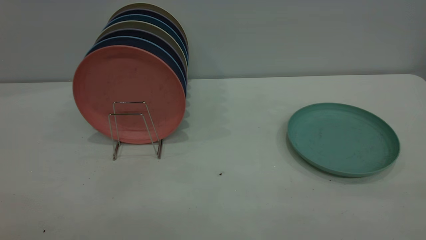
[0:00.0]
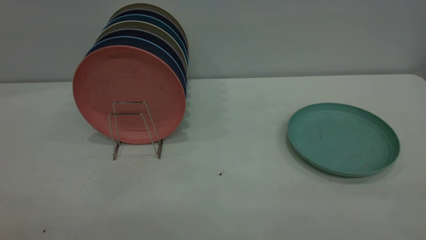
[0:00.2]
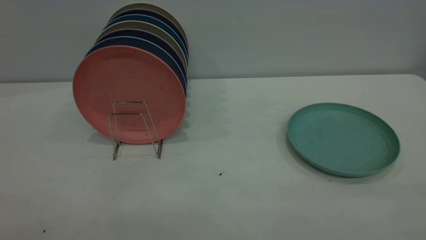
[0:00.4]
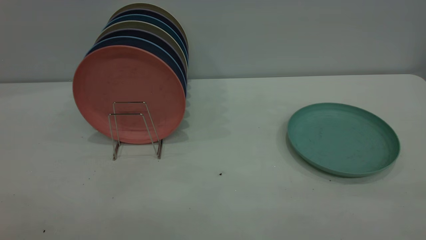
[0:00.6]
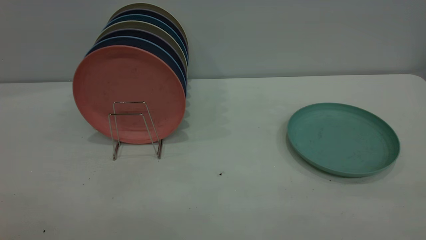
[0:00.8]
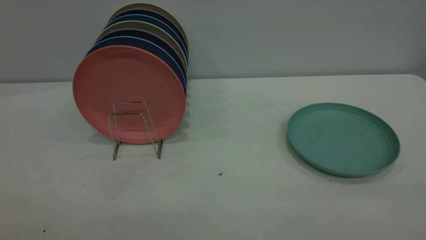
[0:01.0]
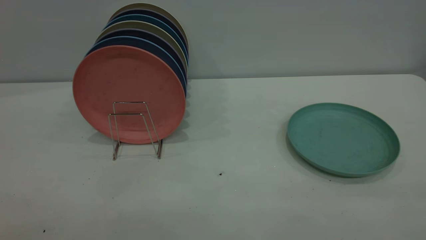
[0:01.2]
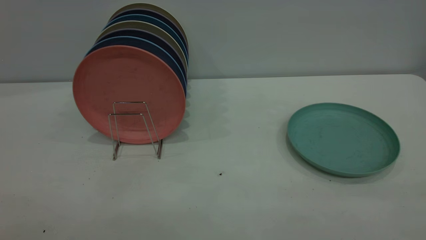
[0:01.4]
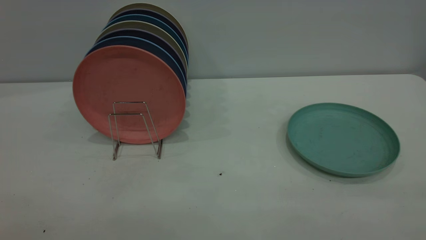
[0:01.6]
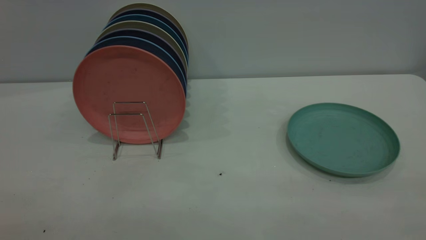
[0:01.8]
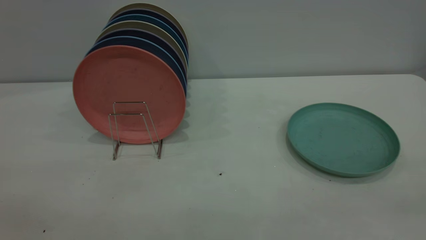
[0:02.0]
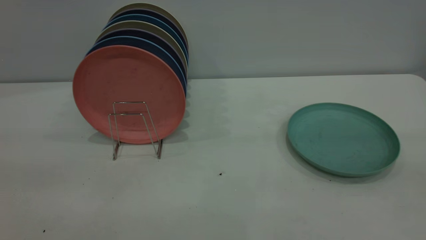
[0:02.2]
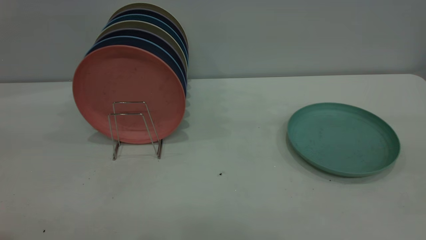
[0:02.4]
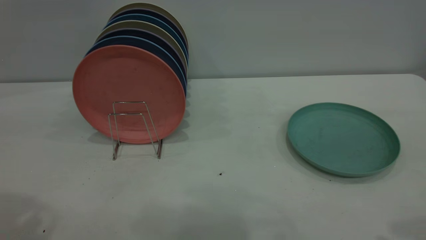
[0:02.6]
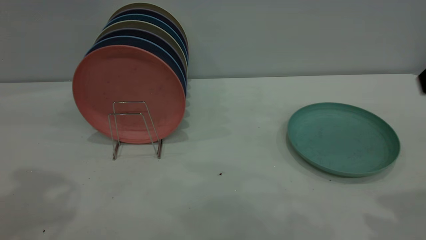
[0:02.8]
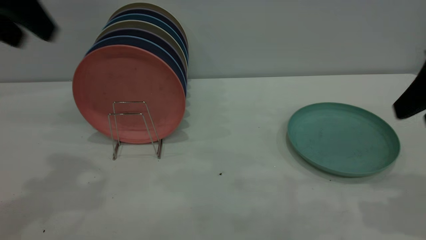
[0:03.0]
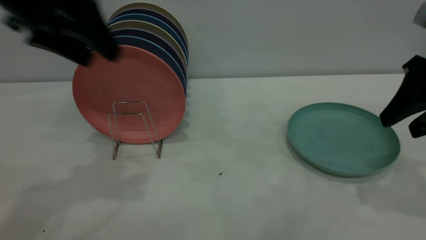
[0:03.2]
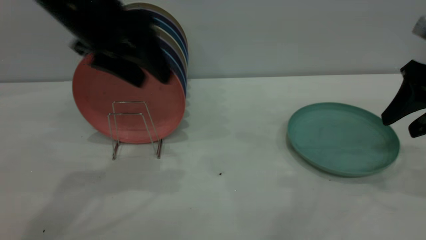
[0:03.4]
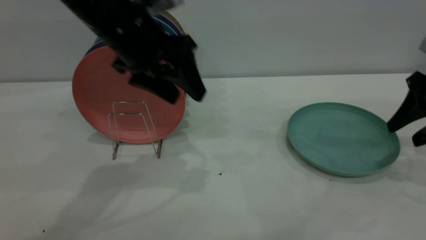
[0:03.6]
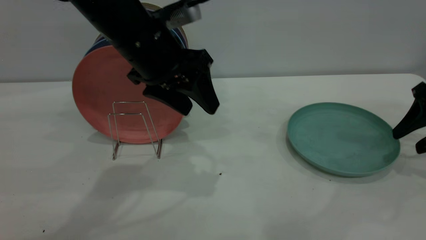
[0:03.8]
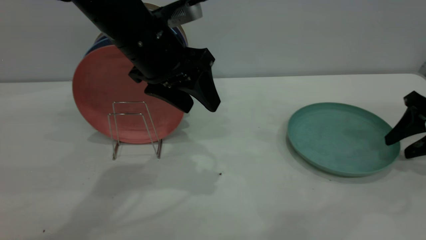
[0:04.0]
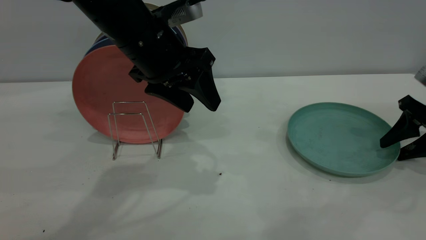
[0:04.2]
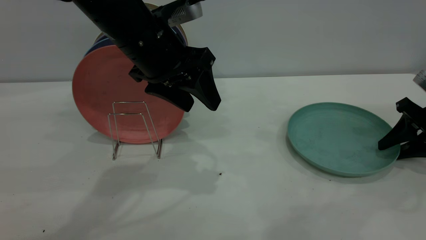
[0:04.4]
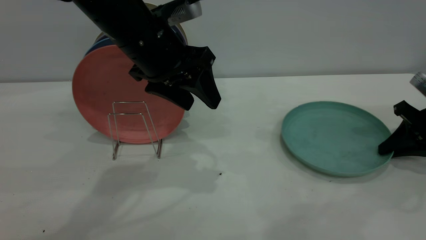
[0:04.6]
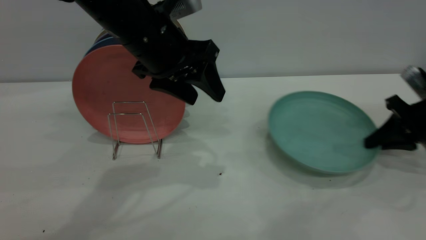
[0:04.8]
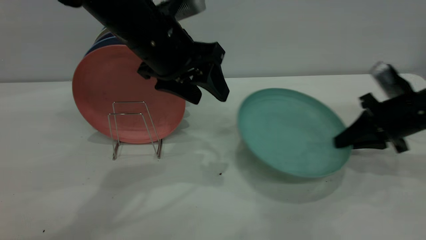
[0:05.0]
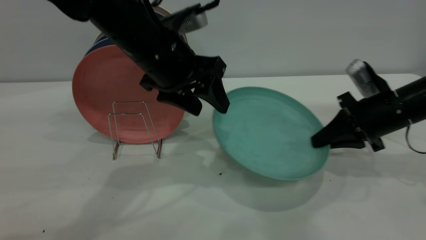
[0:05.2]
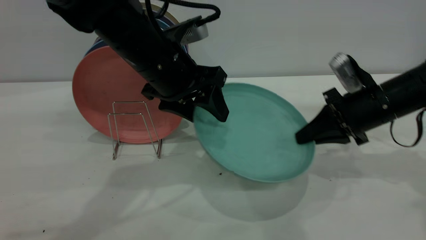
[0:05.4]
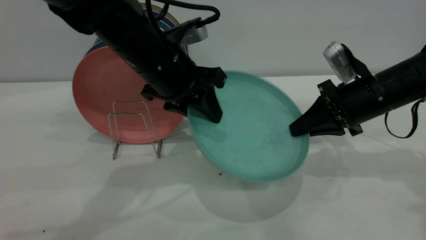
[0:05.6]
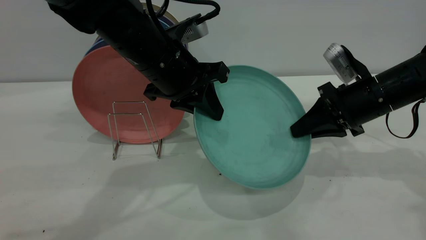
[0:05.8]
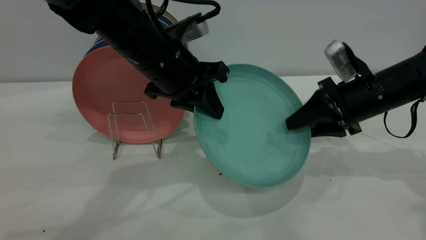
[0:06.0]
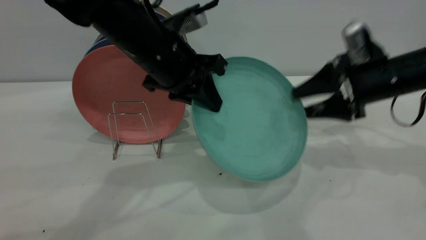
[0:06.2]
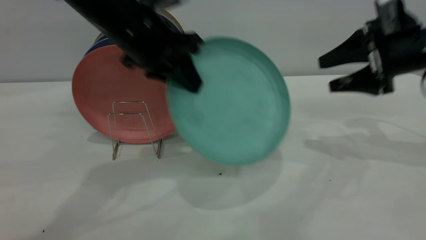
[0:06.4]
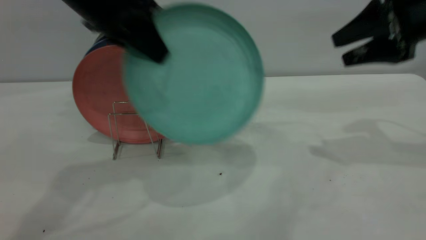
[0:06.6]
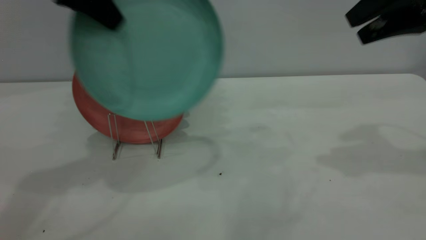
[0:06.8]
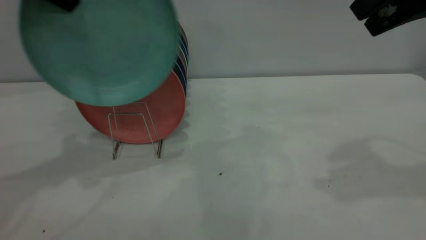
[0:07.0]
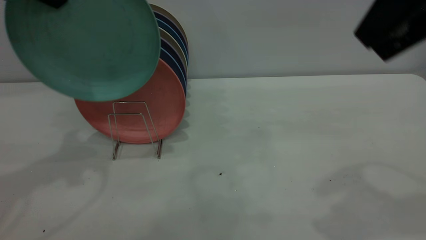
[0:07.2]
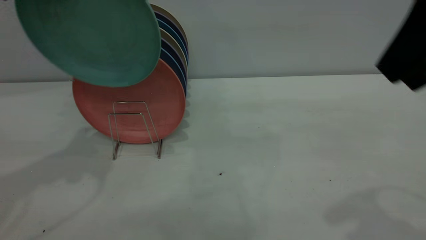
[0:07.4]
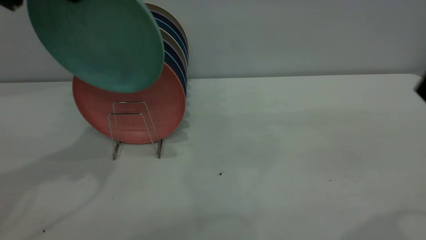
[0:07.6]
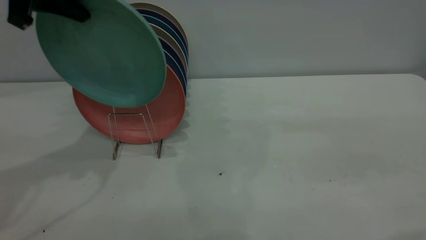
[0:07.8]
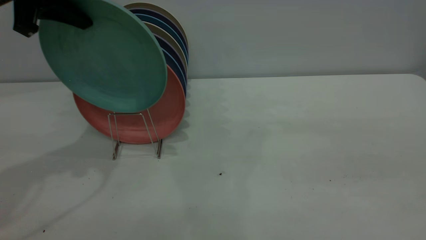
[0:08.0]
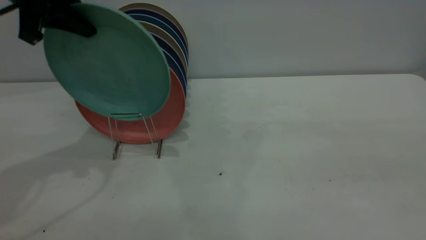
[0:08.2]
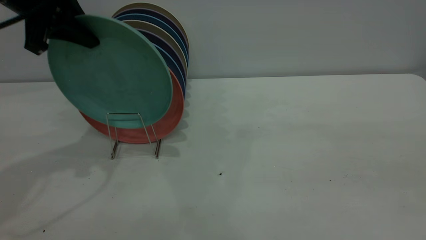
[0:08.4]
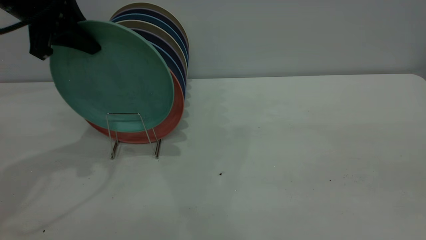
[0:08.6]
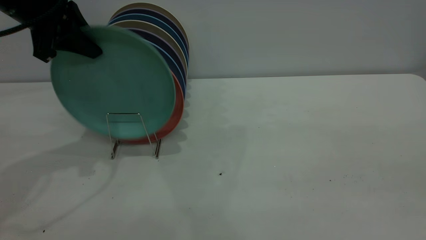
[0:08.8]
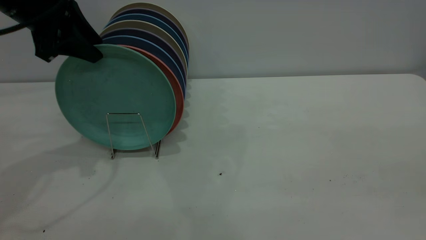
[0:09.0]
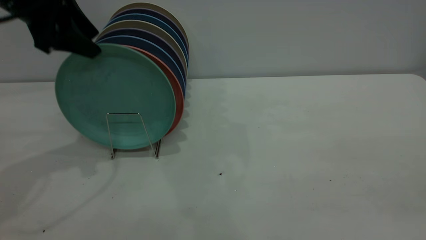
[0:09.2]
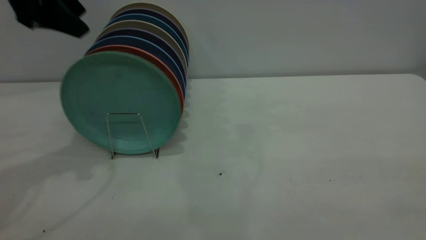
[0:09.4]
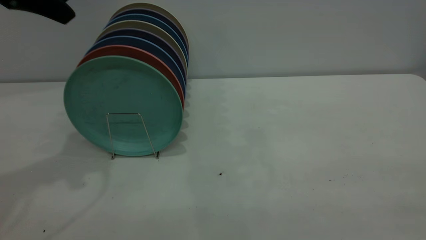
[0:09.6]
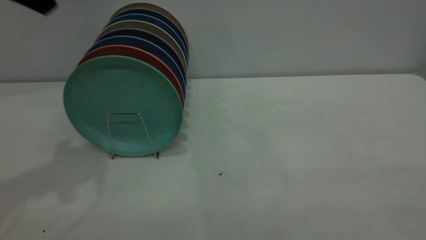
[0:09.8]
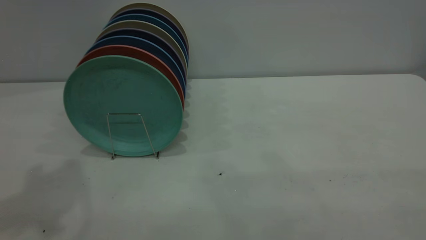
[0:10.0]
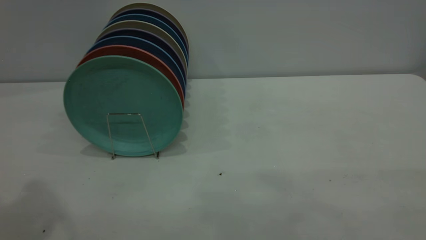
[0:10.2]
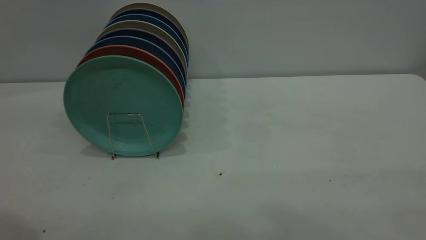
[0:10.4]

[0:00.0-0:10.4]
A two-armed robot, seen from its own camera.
Task of the whole recording: the right gripper grasp the green plate, the right gripper pass the green plate to the left gripper, and the left gripper place the green plate on the plate rack.
Step, 0:00.0 to 0:04.8: Pick up the plate with the right gripper.
Step, 0:05.0 to 0:06.2: Pass the plate from the right gripper to the left gripper.
Step, 0:06.4 to 0:09.4: Place the plate on the shelf.
0:00.0 to 0:01.4: Neither gripper changes place.
0:01.4 to 0:03.0: The two grippers go approximately 30 cm forward.
0:03.0 to 0:04.4: The right gripper goes roughly 20 cm downward, forward and to the right, and closes, while the left gripper goes some 20 cm to the right and downward.
0:04.4 to 0:06.0: The left gripper closes up. Meanwhile the right gripper is displaced to the left by some 15 cm, and closes and opens again.
0:06.0 to 0:07.4: The left gripper heads to the left and upward, covering approximately 25 cm. Meanwhile the right gripper goes approximately 30 cm upward and backward.
0:07.4 to 0:09.0: The left gripper shifts about 10 cm downward, and opens, while the right gripper is displaced backward by roughly 15 cm.
0:09.0 to 0:10.4: The left gripper shifts roughly 30 cm backward and upward.

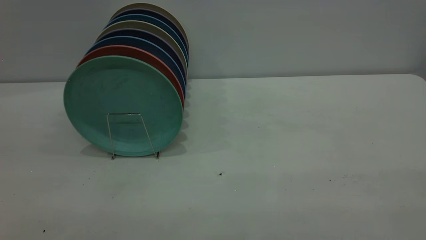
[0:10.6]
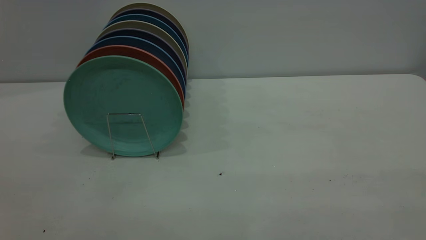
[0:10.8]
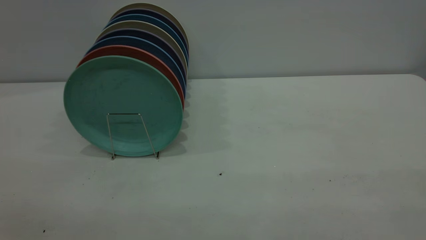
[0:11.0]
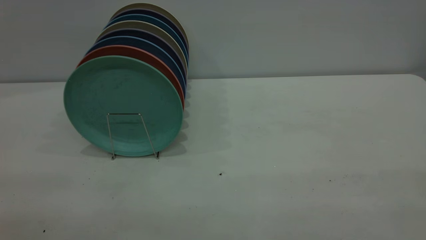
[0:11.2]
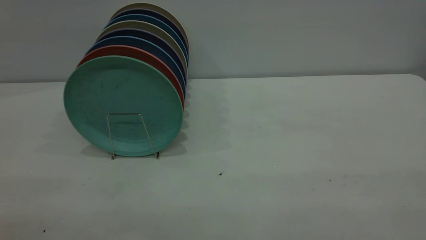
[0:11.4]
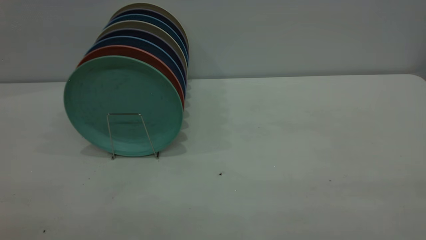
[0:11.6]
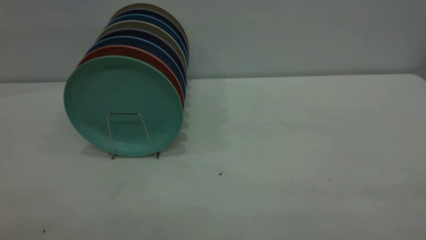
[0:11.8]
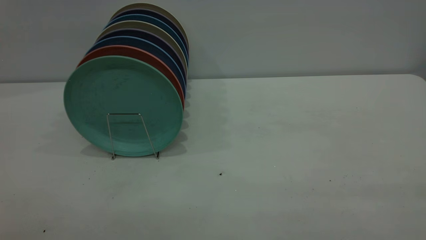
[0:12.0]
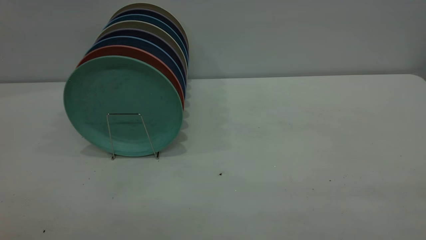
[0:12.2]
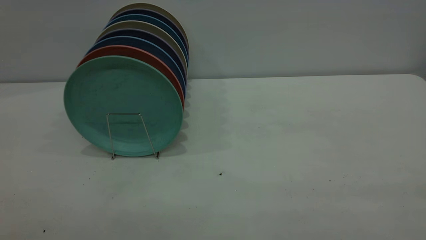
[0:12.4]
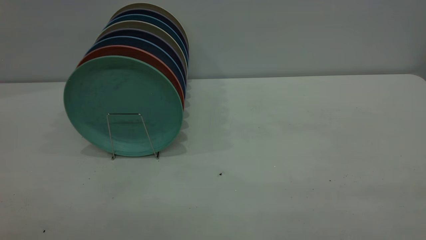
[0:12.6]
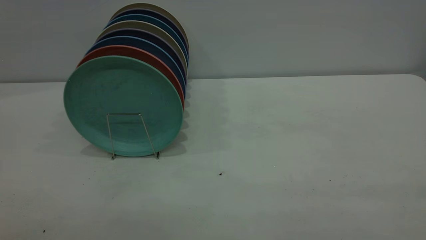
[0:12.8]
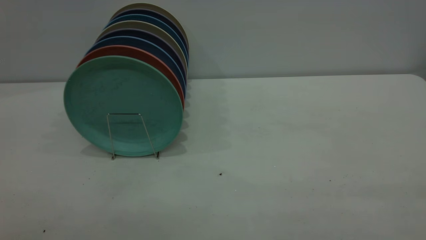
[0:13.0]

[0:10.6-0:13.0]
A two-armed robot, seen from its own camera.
Task of the whole recording: the right gripper grasp the green plate, the right gripper pass the green plate to the left gripper, and the left gripper place the green plate on the plate rack.
0:11.8 to 0:13.0: The two grippers keep their place.

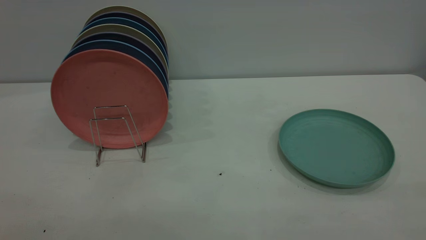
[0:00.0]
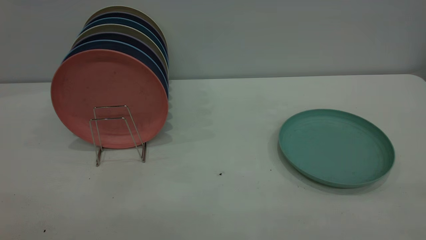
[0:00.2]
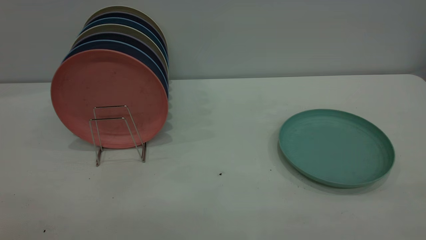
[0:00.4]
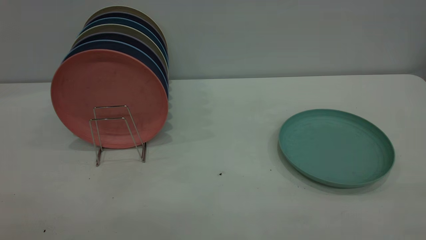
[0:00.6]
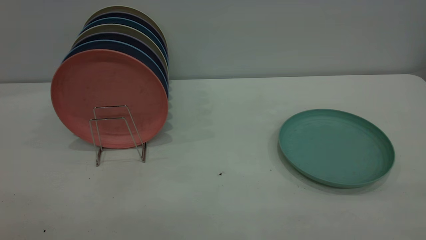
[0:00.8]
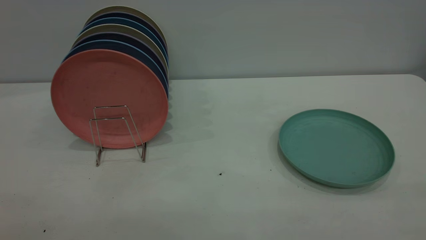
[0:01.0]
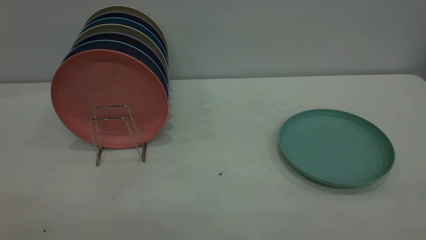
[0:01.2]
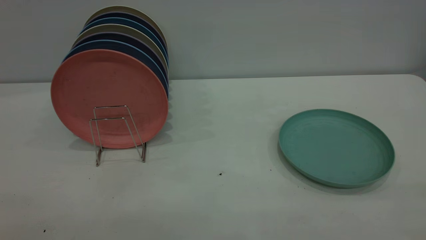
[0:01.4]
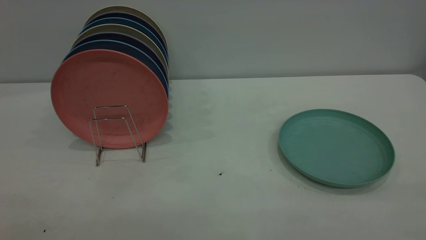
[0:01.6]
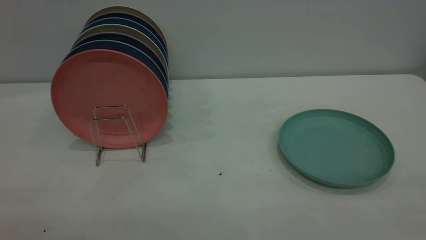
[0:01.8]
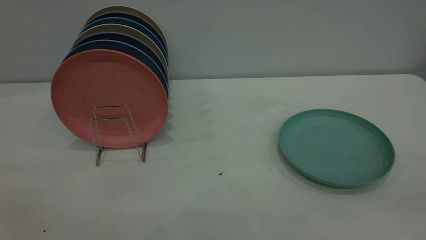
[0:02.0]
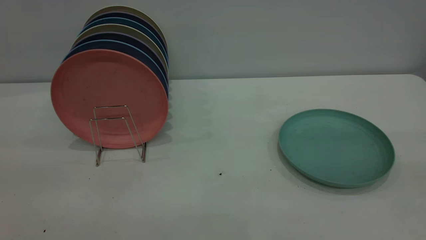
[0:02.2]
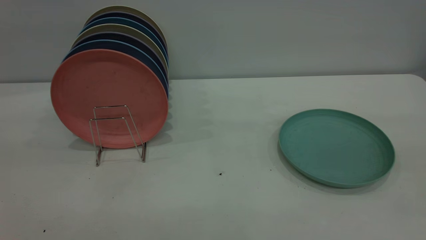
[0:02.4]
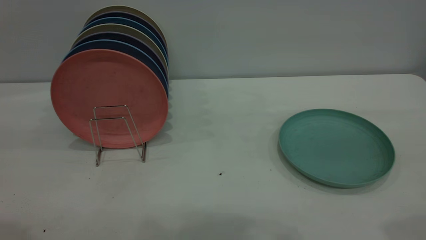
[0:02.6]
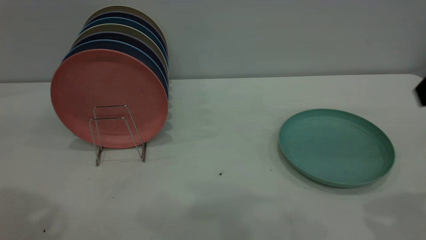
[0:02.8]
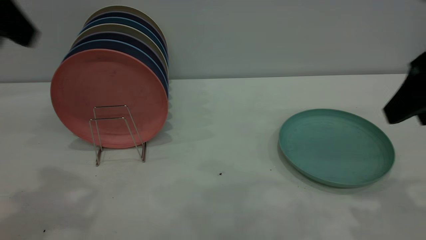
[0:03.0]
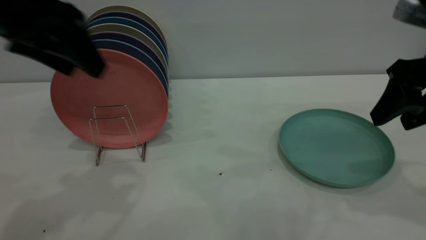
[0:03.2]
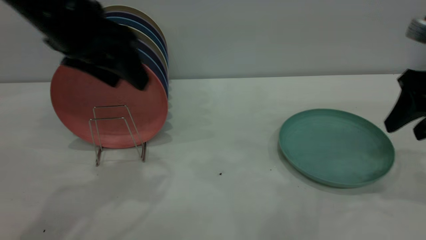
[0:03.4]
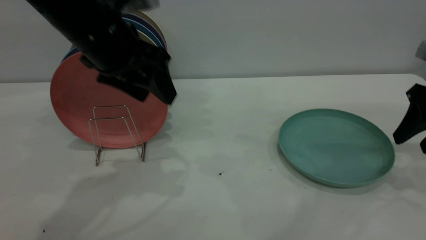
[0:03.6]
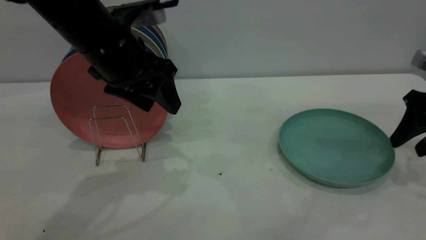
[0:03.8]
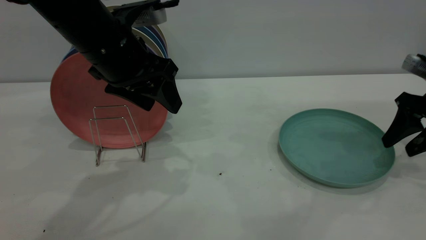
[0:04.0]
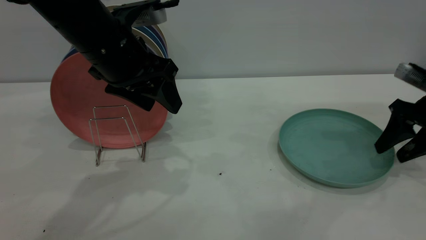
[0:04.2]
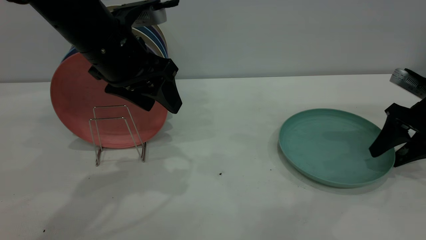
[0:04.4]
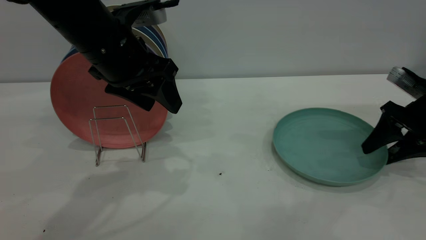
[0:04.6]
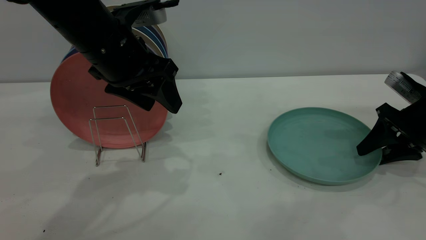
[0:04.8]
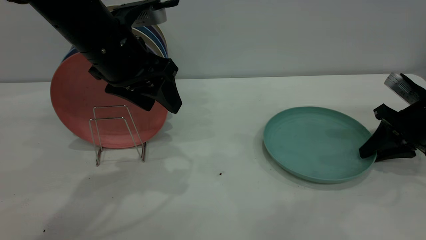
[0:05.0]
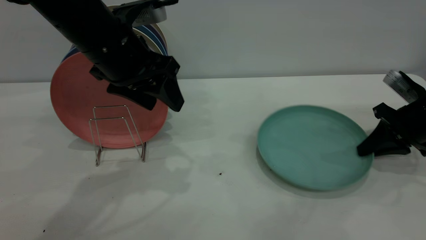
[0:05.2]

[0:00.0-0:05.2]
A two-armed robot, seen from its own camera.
Task of the whole recording: the right gripper grasp the green plate, the right gripper pass the green plate to the left gripper, and the left gripper place the green plate on the plate rack.
0:01.8 to 0:03.4: The right gripper travels forward and downward by roughly 35 cm; the left gripper shifts some 35 cm forward.
0:03.4 to 0:05.2: The right gripper goes roughly 15 cm downward and forward, and closes its fingers, while the left gripper moves roughly 5 cm.
